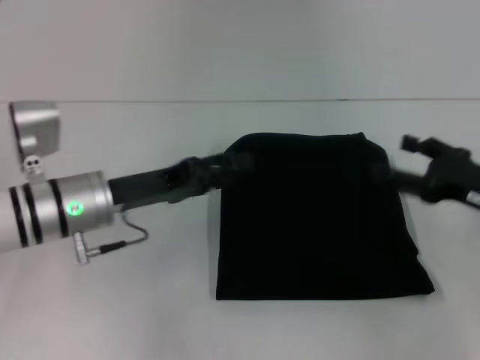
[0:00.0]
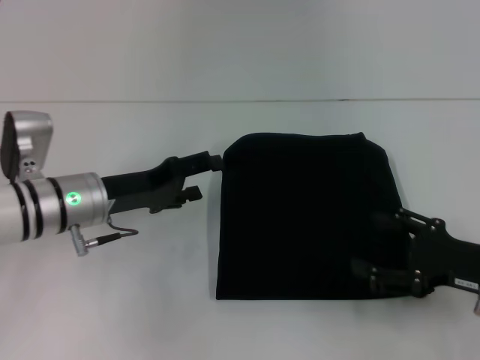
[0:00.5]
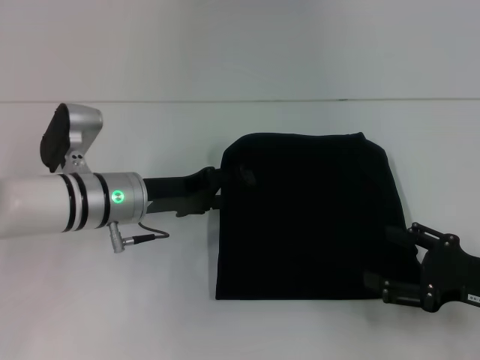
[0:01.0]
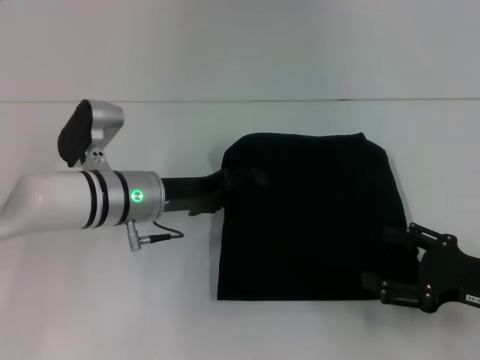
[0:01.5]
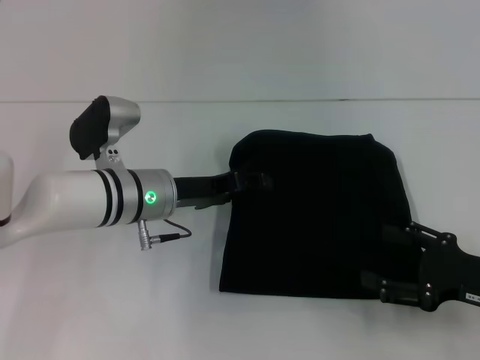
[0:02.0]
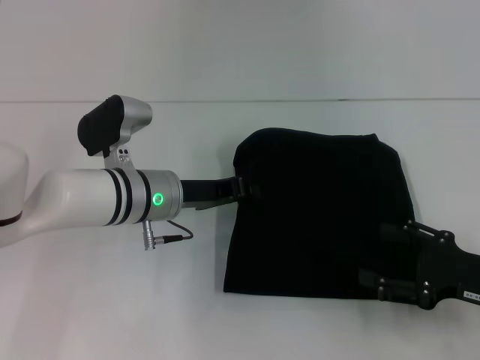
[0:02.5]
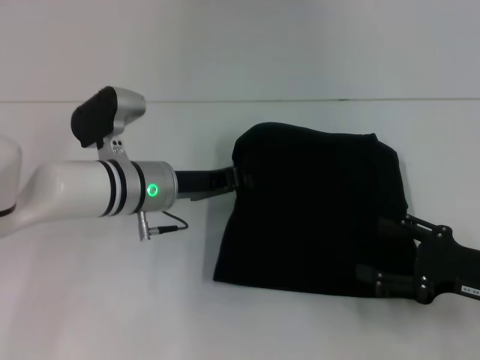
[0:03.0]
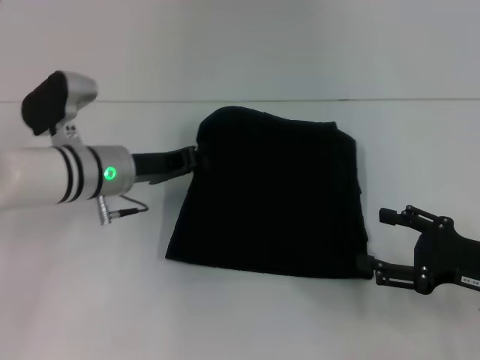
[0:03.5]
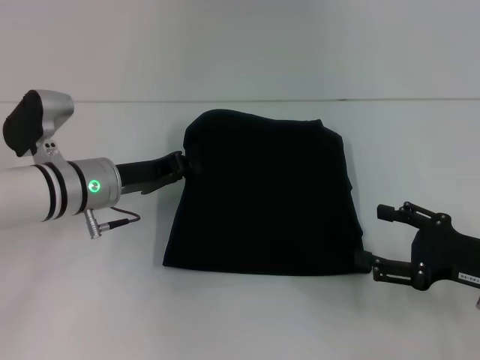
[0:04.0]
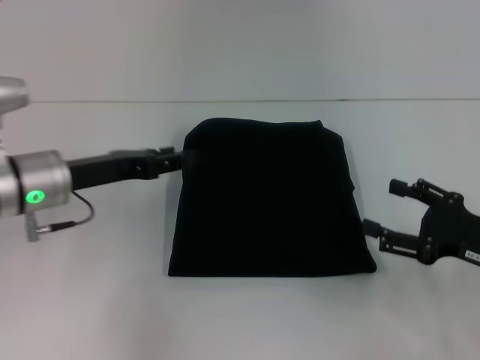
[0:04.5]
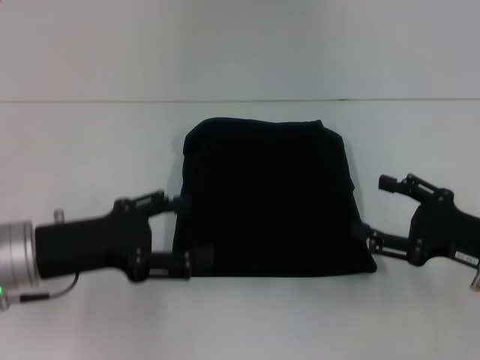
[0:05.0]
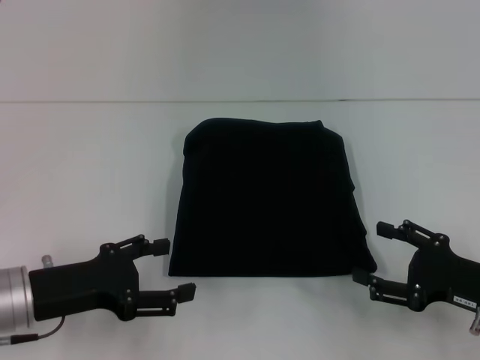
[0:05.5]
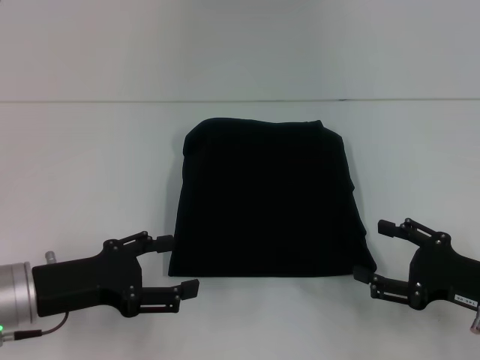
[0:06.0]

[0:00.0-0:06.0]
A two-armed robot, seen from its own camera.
0:00.0 to 0:02.0: The left gripper is displaced to the right by approximately 5 cm; the right gripper shifts some 5 cm backward.
0:02.0 to 0:04.0: The left gripper goes about 5 cm to the left, and closes its fingers.
0:04.0 to 0:06.0: The left gripper heads backward and to the left, covering approximately 15 cm, and opens its fingers.
